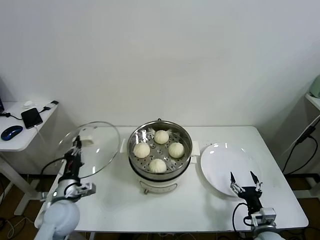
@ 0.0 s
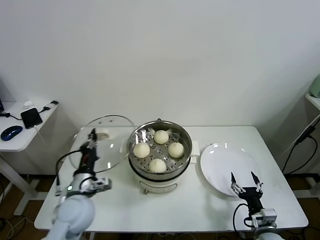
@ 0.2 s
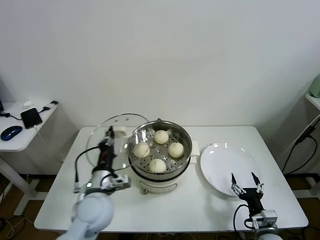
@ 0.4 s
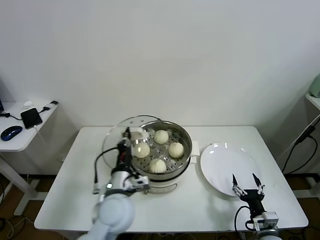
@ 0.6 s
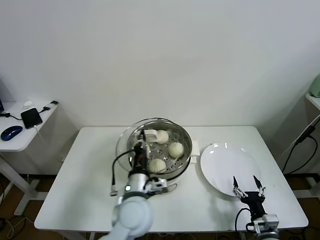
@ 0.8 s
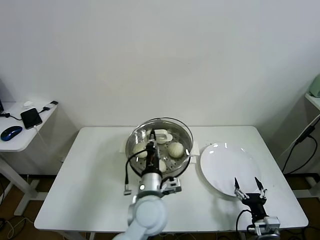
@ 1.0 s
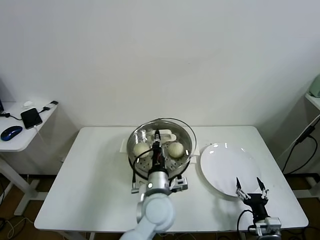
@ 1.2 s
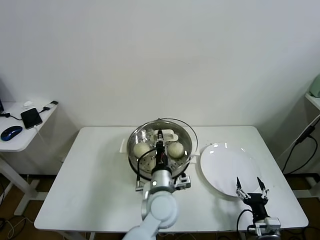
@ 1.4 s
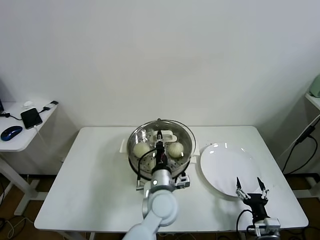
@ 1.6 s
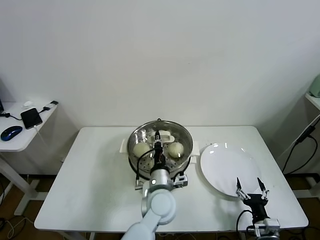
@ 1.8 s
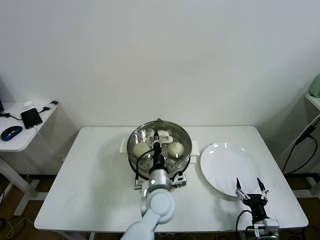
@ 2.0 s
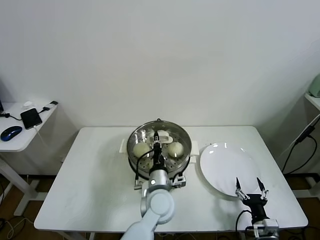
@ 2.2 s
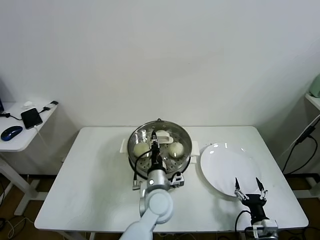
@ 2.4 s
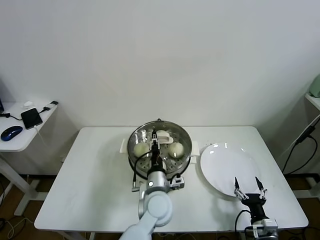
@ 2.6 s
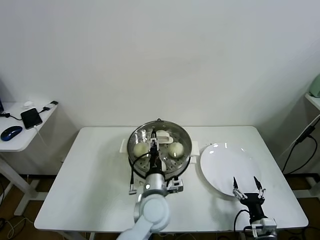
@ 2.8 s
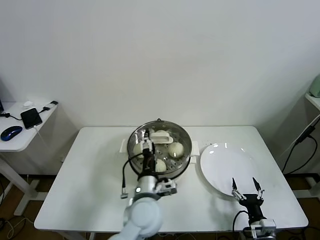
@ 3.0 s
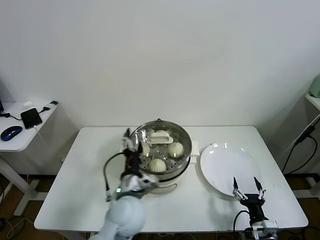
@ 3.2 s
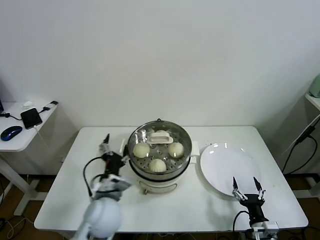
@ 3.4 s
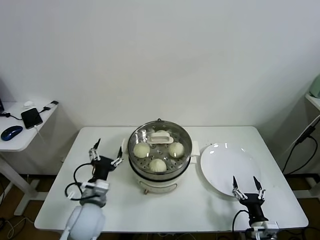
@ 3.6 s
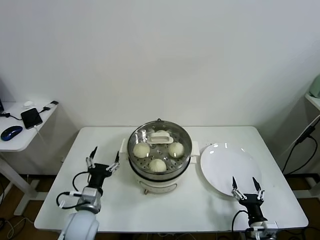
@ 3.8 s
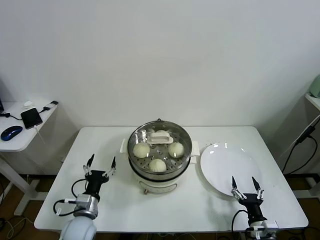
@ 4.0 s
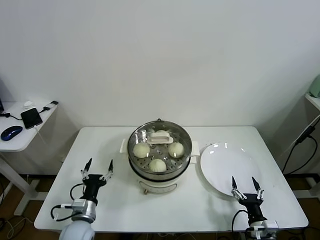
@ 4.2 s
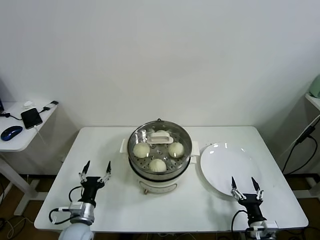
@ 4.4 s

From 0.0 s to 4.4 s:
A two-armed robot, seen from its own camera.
Task of the whole recording: take steamed baozi put them in steamer.
Step, from 0.0 s to 2.6 s: Place the pot lid on the steamer with left gripper.
From 0.0 s to 1.4 s: The left gripper shifts some 30 cm to the right.
From 1.4 s to 3.0 s: The left gripper opens.
From 3.0 s to 4.4 s: The left gripper heads to the left and downward, covering roughly 25 cm.
